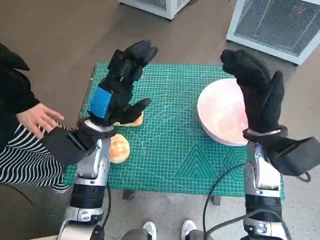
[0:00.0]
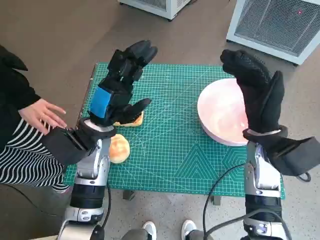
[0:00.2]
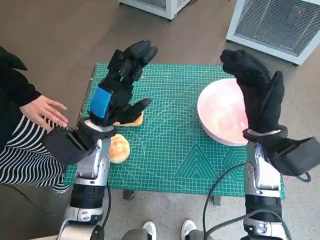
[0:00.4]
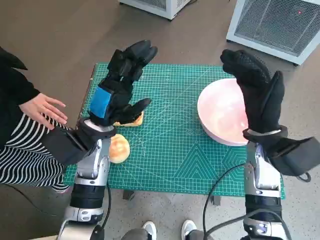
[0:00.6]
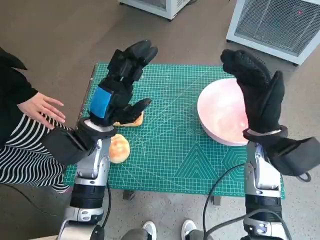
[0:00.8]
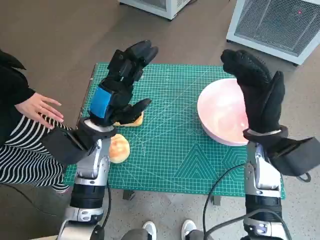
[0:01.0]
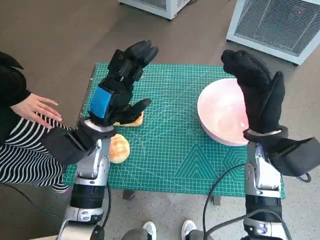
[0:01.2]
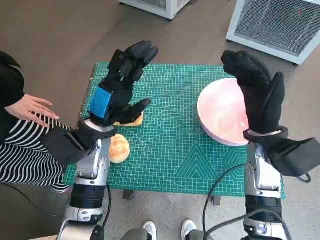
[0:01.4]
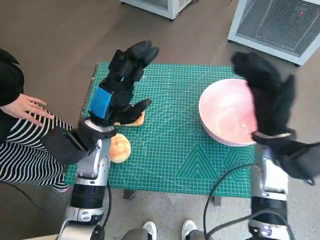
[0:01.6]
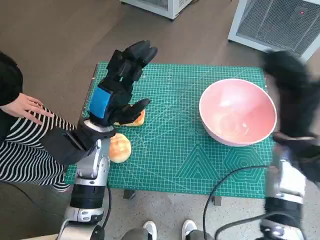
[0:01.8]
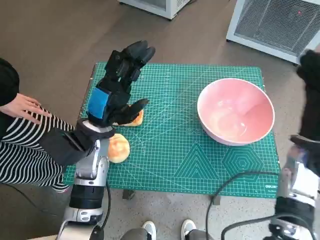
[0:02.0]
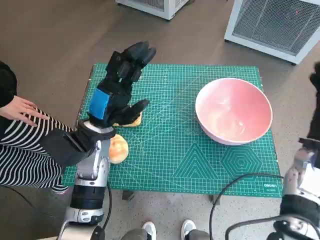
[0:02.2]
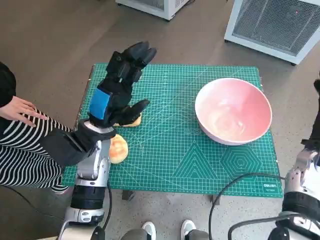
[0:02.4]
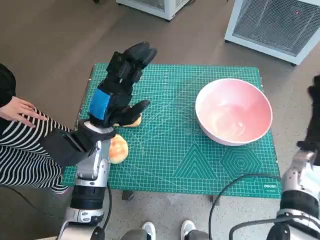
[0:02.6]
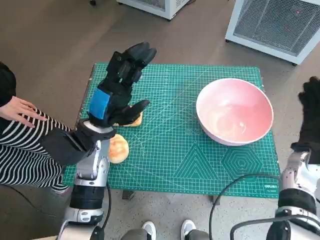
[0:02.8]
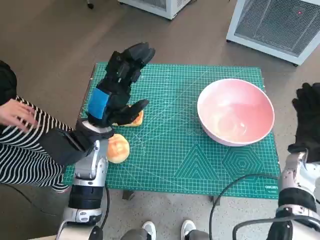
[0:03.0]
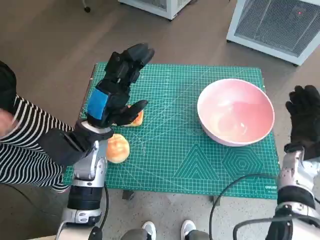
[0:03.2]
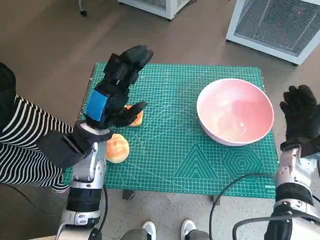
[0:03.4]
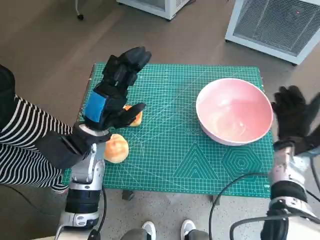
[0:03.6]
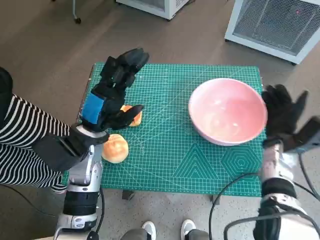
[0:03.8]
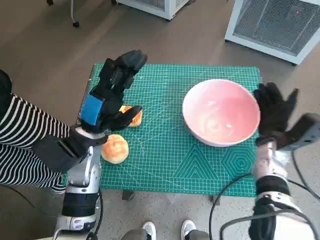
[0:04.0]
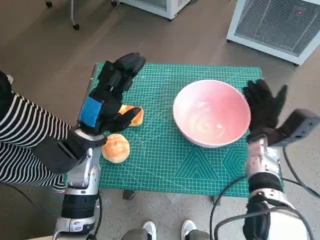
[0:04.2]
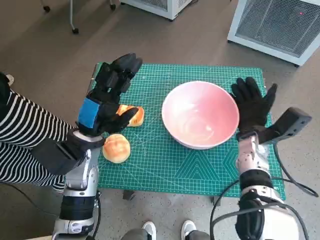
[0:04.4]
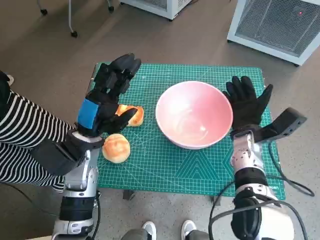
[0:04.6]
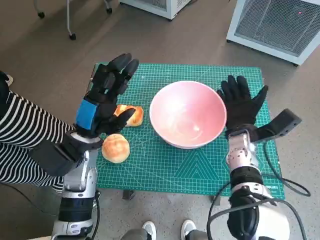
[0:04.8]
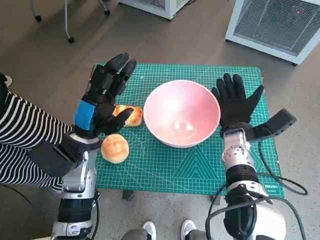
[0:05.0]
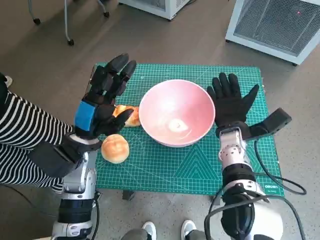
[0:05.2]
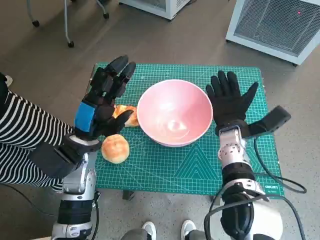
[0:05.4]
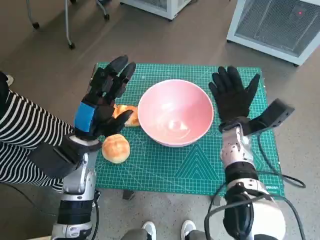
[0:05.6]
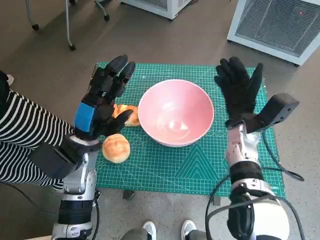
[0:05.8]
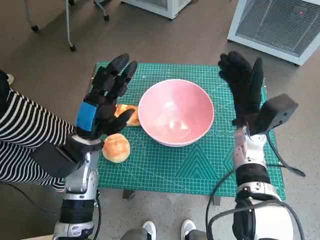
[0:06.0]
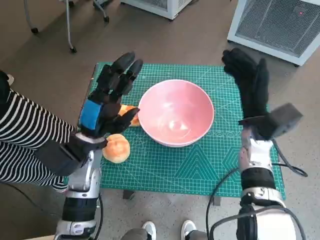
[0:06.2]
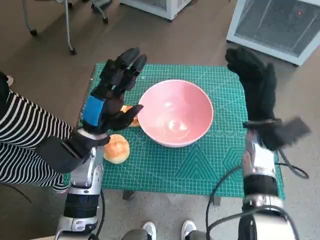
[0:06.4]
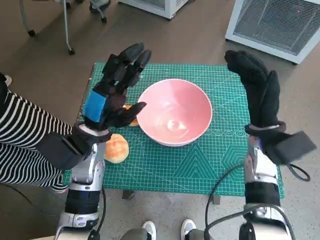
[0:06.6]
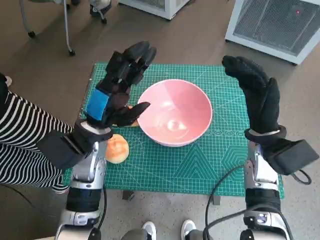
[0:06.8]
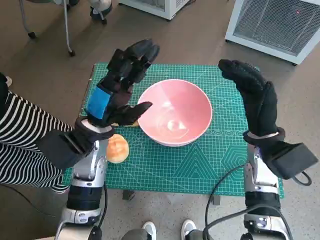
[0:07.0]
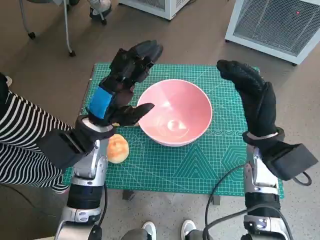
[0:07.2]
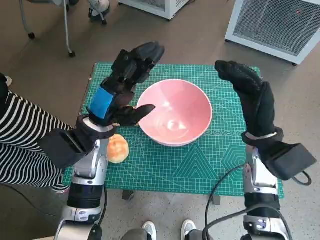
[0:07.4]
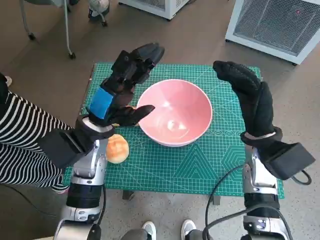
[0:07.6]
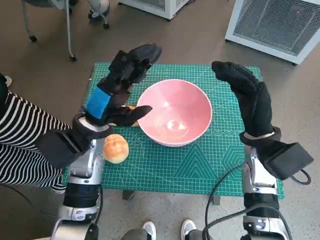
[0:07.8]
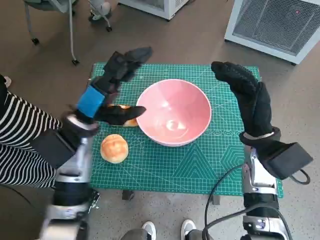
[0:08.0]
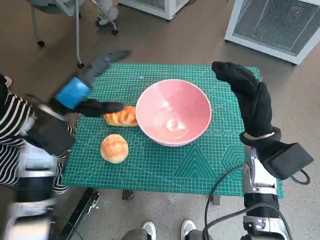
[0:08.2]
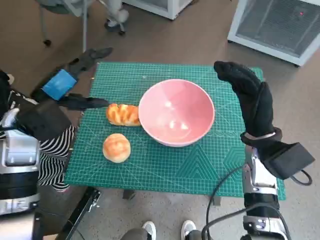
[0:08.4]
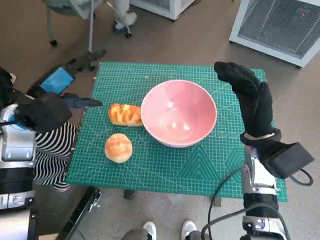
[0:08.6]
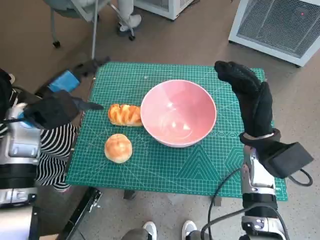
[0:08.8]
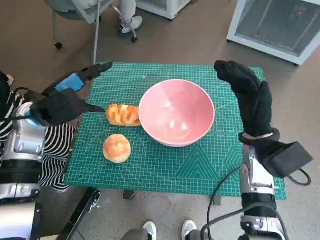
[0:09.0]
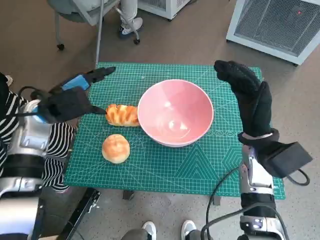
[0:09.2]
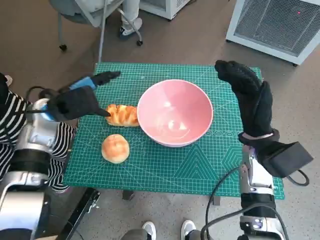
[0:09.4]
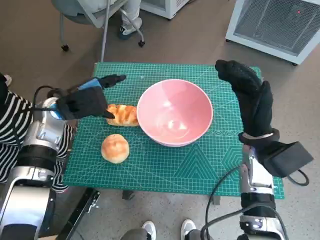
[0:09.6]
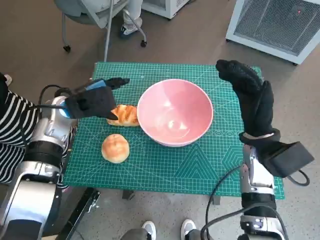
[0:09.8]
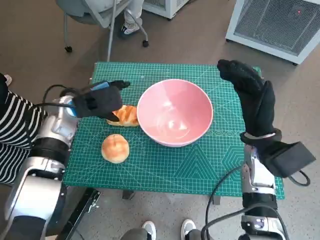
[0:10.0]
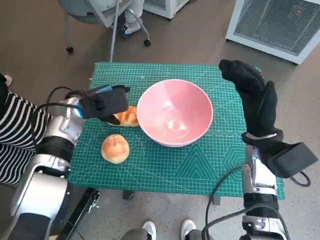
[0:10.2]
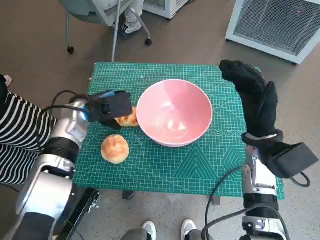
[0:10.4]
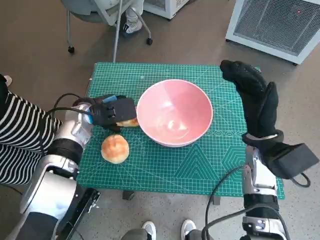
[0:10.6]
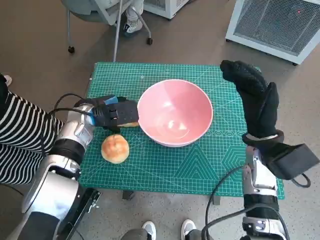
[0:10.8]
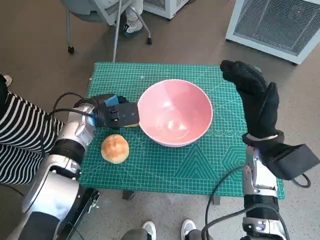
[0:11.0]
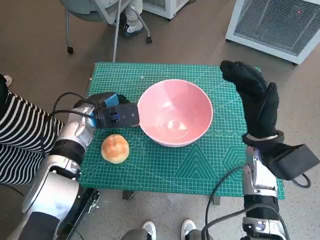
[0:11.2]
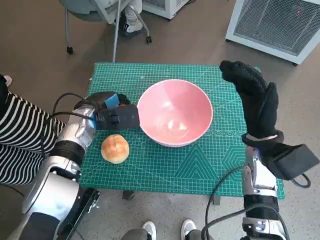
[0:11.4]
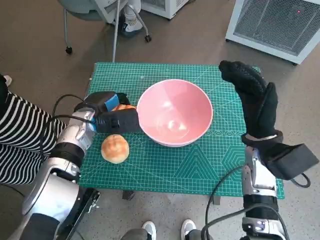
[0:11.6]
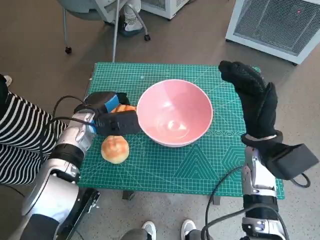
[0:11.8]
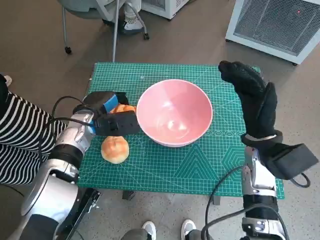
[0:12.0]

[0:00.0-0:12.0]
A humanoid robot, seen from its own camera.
Task of the whole recording: Push the bowl into the center of the table and put the bread into the bowl.
Step, 0:00.0 to 0:05.6: Move the pink bowl to the center of table with right hand.
Step, 0:05.8 to 0:11.4: Grasp the long bread with left hand.
0:01.6 to 0:03.0: The right hand is displaced to the right and downward by some 15 cm.
0:03.0 to 0:04.4: The right hand shifts approximately 10 cm to the left.
0:06.0 to 0:07.6: The right hand changes place by some 5 cm.
0:07.6 to 0:09.0: The left hand moves to the left, some 10 cm.
0:09.0 to 0:10.4: The left hand is displaced to the right and downward by approximately 10 cm.

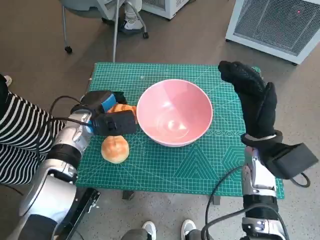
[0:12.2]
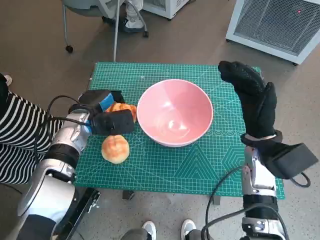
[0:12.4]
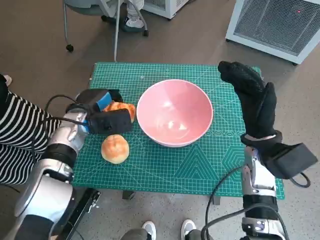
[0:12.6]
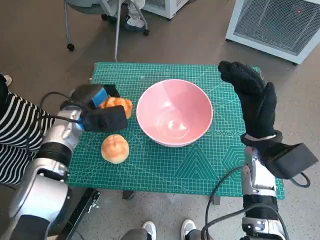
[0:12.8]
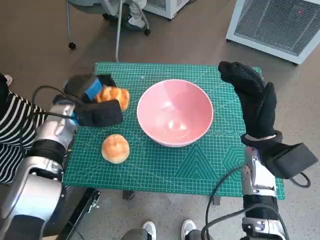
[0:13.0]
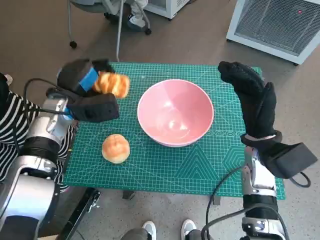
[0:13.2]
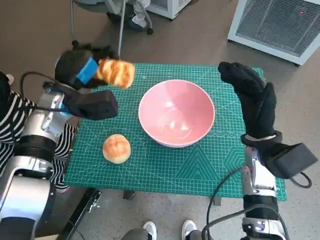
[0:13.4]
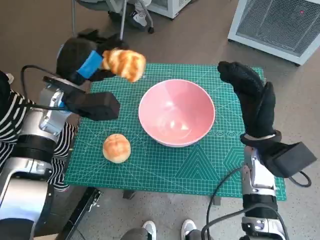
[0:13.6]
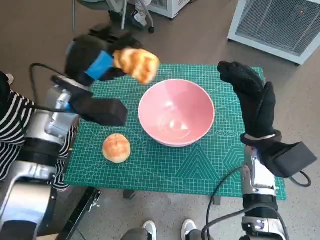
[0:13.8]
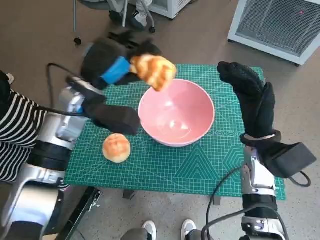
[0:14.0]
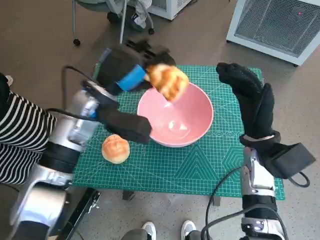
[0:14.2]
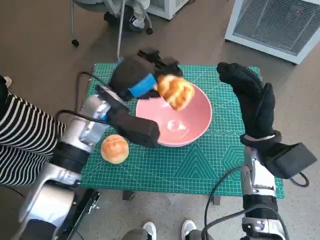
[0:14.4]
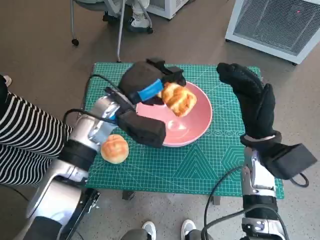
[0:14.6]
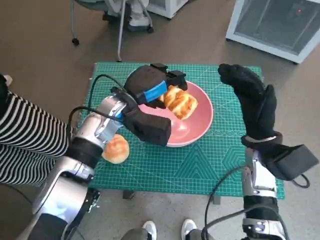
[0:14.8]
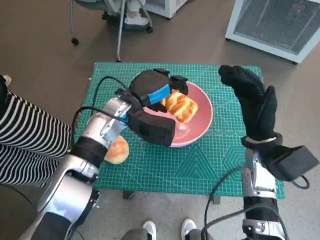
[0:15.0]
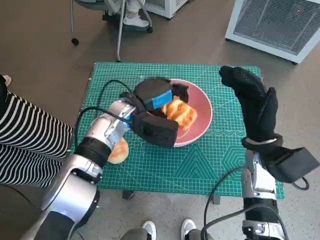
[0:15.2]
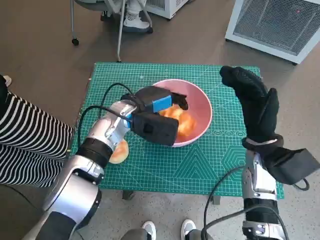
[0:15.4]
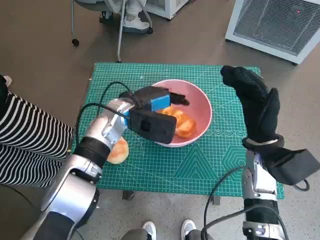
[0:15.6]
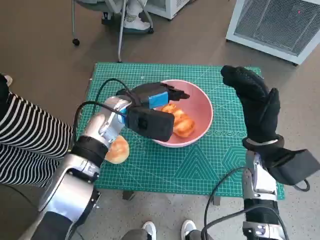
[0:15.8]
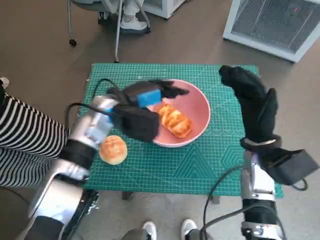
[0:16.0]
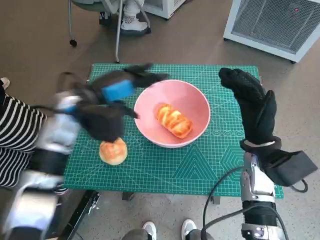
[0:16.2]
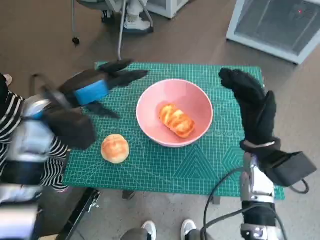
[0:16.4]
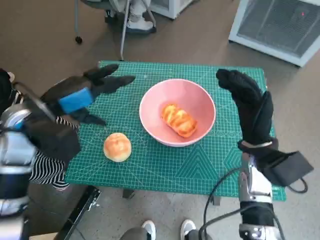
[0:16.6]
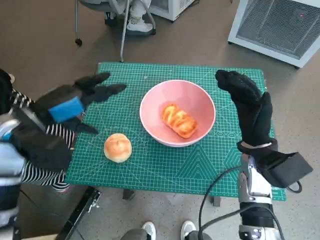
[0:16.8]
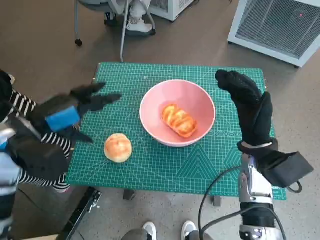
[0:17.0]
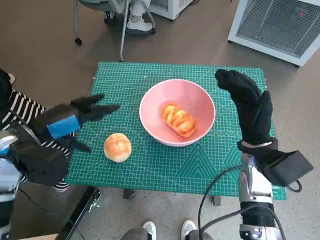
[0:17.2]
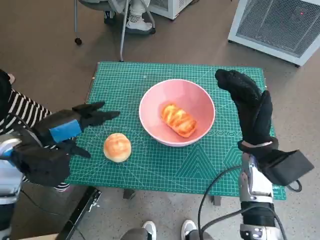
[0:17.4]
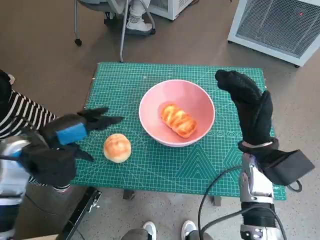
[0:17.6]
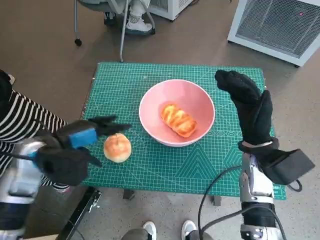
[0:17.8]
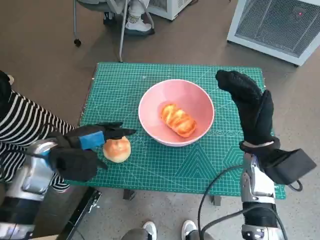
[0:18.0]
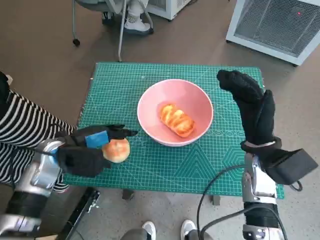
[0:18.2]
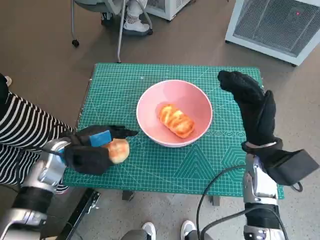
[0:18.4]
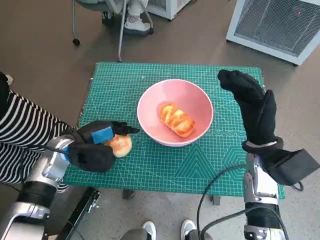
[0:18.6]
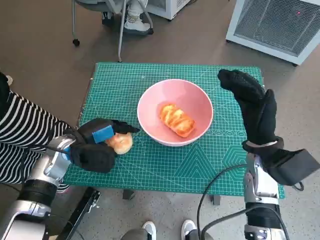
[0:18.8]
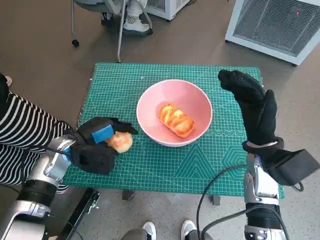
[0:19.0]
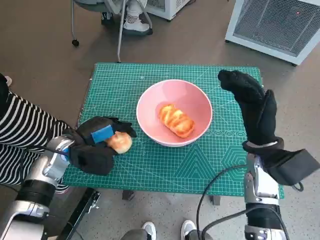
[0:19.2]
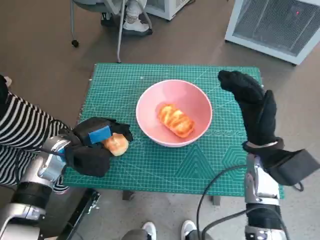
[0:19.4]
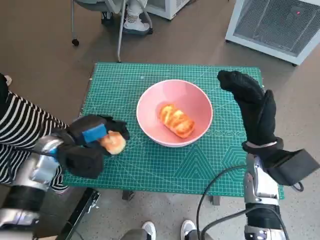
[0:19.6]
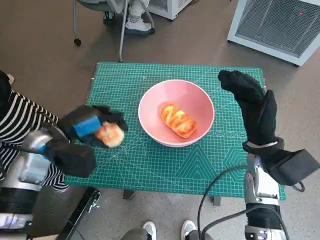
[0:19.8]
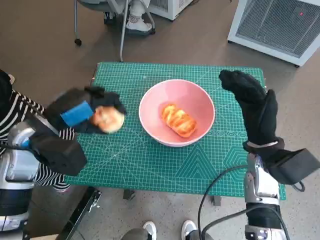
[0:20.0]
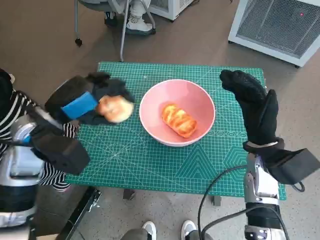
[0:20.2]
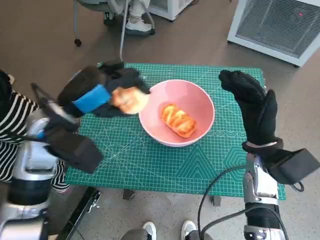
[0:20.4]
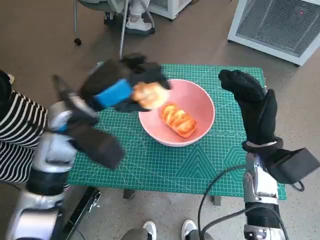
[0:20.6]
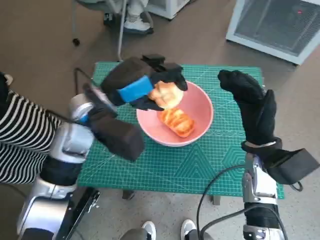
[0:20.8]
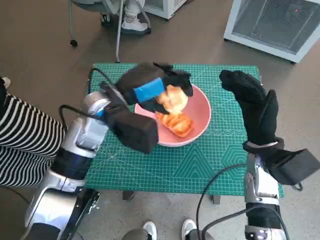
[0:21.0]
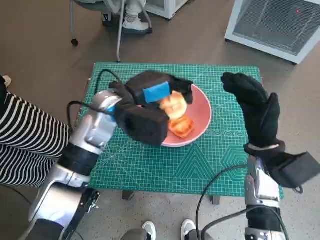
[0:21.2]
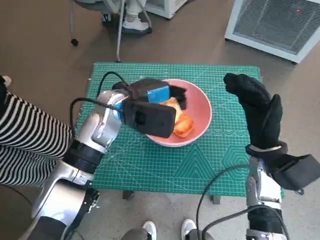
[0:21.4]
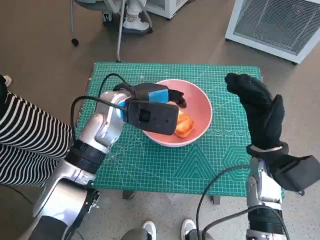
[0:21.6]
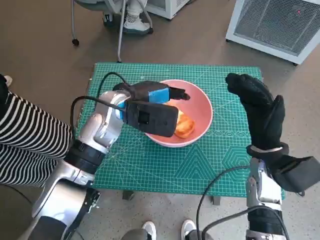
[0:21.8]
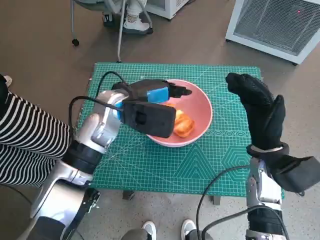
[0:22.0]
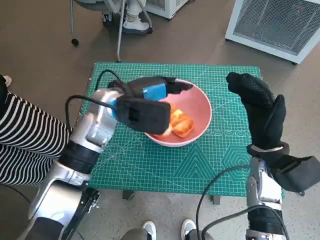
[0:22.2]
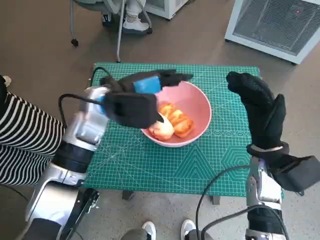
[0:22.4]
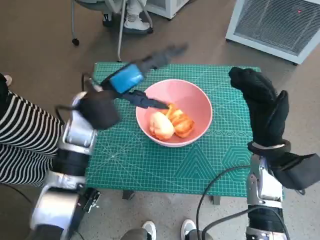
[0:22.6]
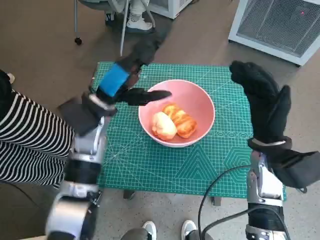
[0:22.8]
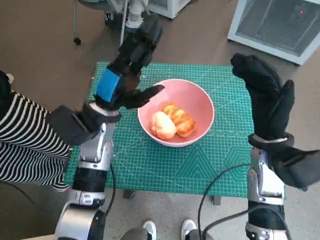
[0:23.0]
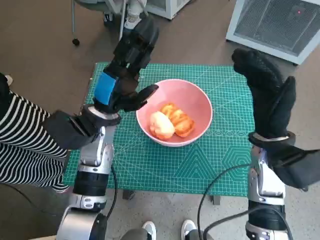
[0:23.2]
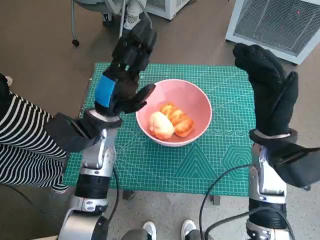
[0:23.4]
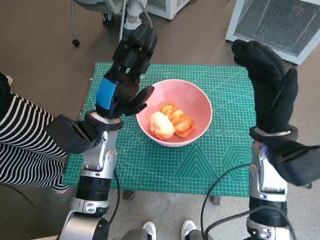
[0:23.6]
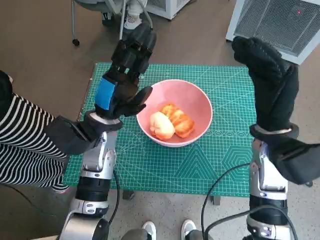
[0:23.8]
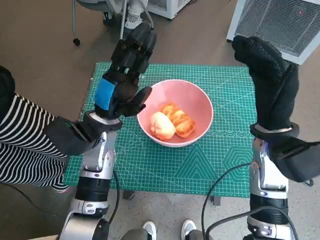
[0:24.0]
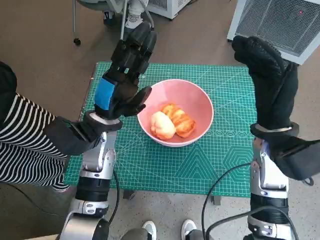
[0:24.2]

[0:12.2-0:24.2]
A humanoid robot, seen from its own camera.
Task of the whole recording: Push the bowl into the center of the table and put the bread into the bowl.
Step, 0:12.2 to 0:16.0: Place the long bread in pink bowl with left hand.
Step, 0:16.2 to 0:19.4: Grasp the round bread with left hand.
Step, 0:19.6 to 0:22.6: Place the round bread in pink bowl with left hand.
0:12.2 to 0:13.8: The left hand goes about 10 cm upward.
0:13.8 to 0:15.2: The left hand goes about 10 cm to the right and downward.
0:15.2 to 0:16.6: The left hand goes about 15 cm to the left, upward and backward.
0:16.6 to 0:18.2: The left hand travels downward by some 10 cm.
0:18.2 to 0:19.8: The hands move only a little.
0:19.8 to 0:21.2: The left hand shifts about 15 cm to the right and forward.
0:22.6 to 0:24.2: The left hand moves downward, roughly 5 cm, while the right hand goes approximately 5 cm upward.
